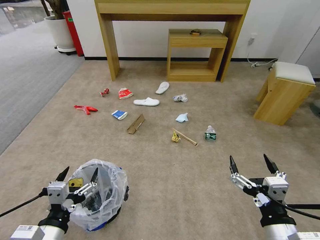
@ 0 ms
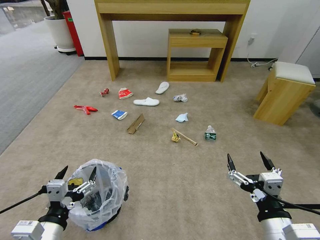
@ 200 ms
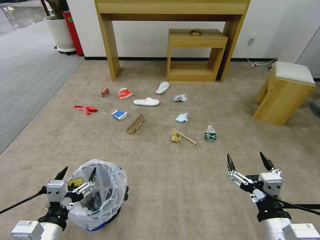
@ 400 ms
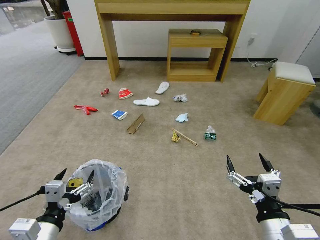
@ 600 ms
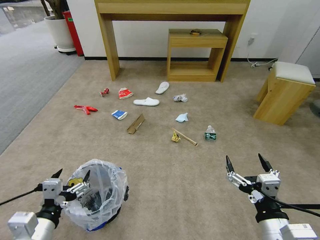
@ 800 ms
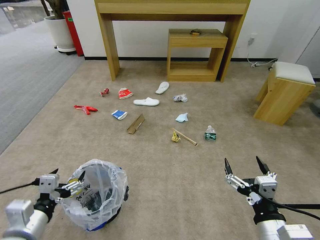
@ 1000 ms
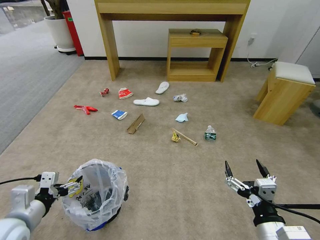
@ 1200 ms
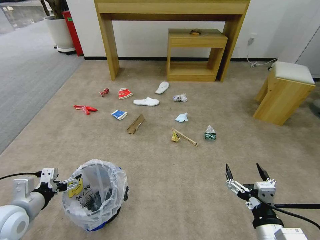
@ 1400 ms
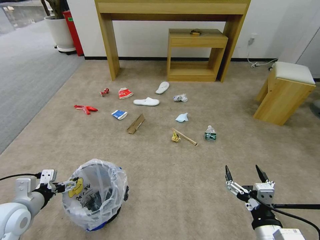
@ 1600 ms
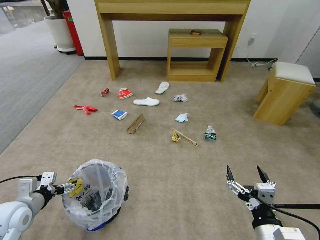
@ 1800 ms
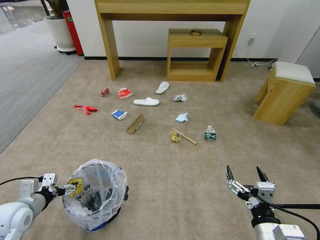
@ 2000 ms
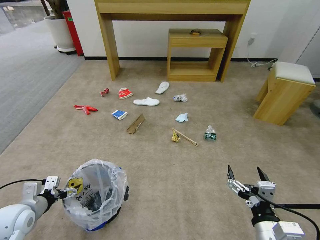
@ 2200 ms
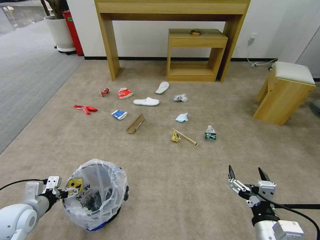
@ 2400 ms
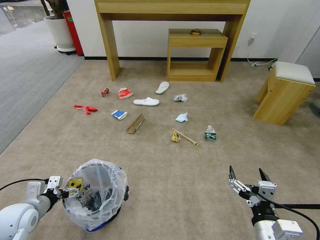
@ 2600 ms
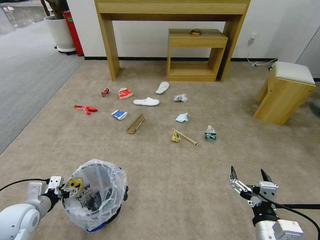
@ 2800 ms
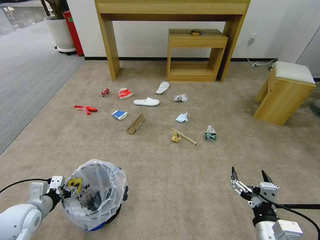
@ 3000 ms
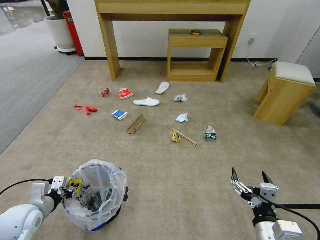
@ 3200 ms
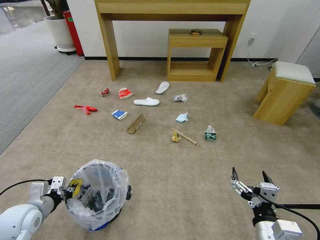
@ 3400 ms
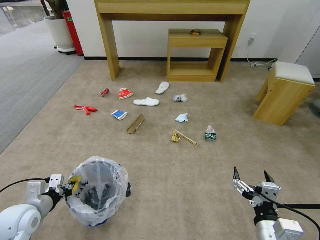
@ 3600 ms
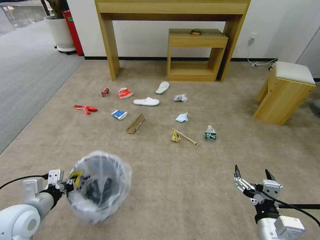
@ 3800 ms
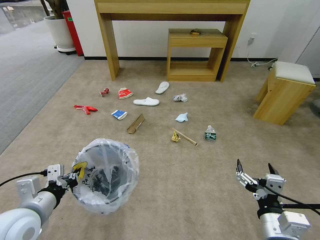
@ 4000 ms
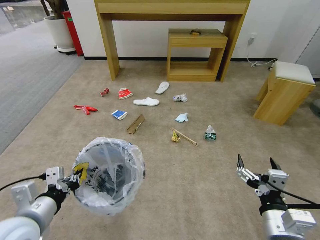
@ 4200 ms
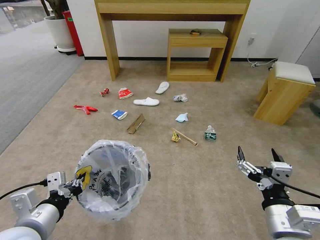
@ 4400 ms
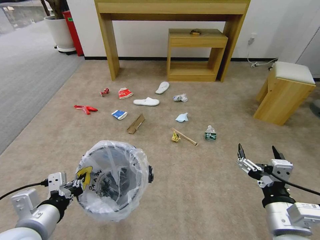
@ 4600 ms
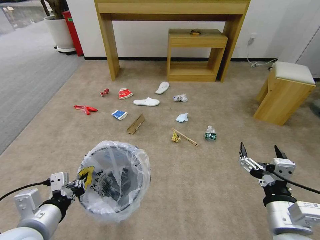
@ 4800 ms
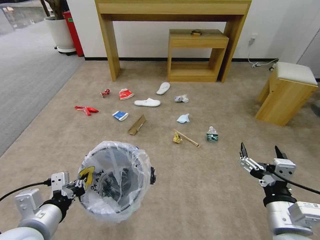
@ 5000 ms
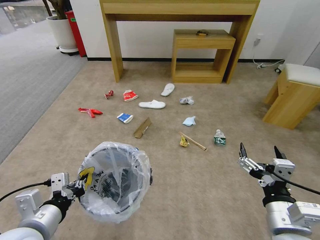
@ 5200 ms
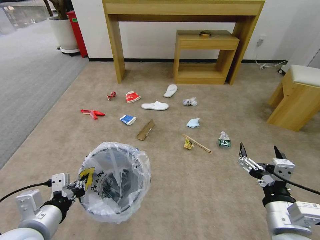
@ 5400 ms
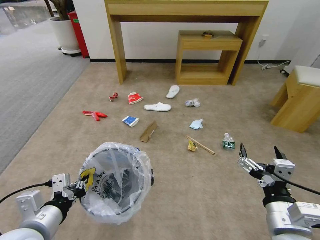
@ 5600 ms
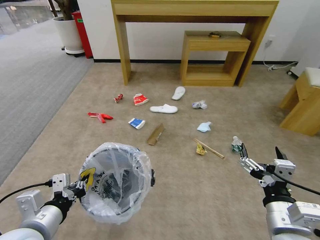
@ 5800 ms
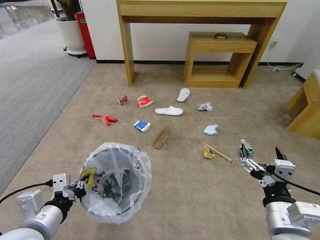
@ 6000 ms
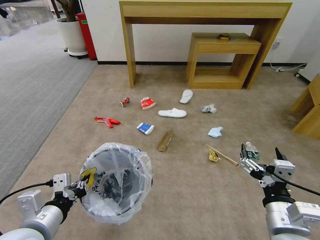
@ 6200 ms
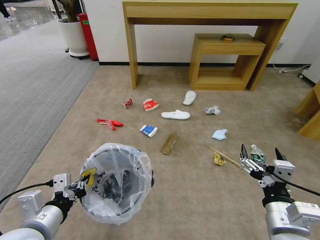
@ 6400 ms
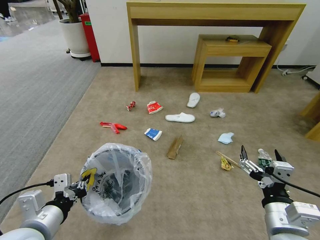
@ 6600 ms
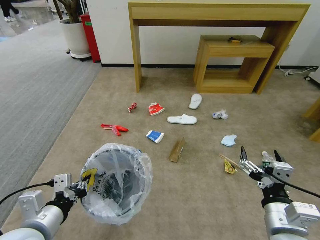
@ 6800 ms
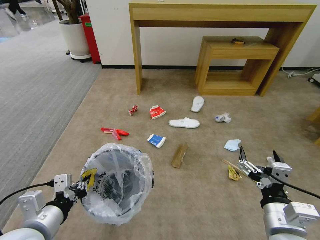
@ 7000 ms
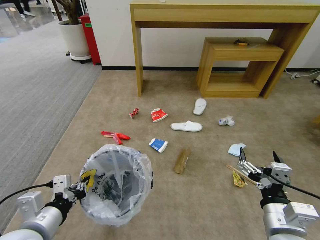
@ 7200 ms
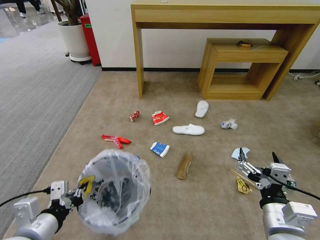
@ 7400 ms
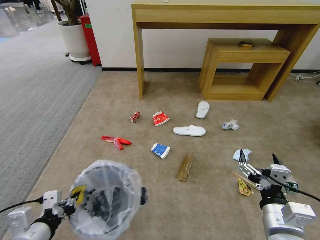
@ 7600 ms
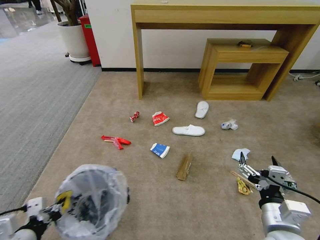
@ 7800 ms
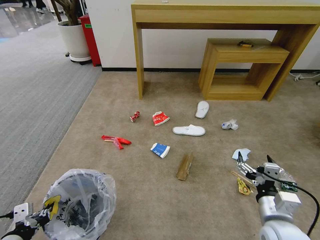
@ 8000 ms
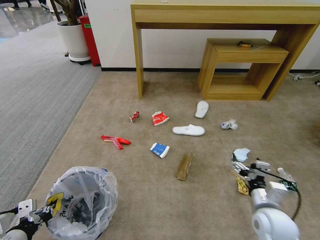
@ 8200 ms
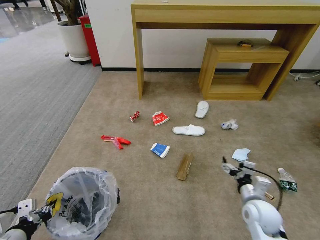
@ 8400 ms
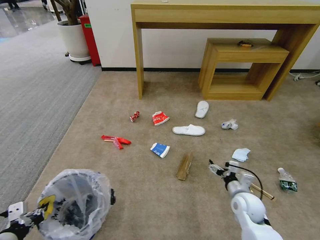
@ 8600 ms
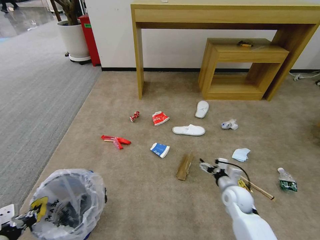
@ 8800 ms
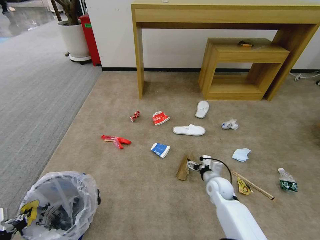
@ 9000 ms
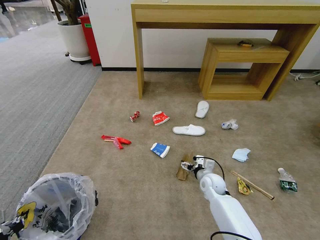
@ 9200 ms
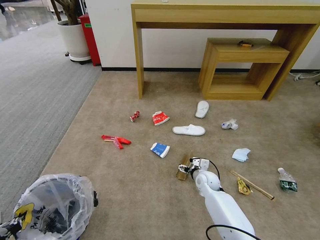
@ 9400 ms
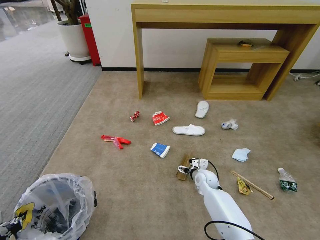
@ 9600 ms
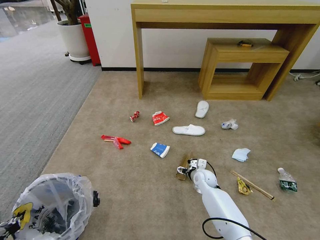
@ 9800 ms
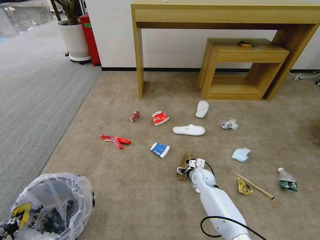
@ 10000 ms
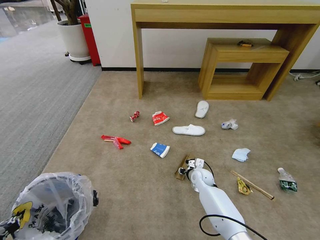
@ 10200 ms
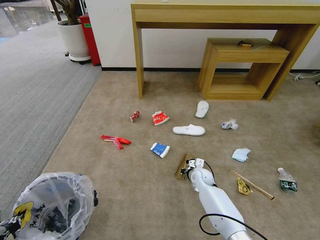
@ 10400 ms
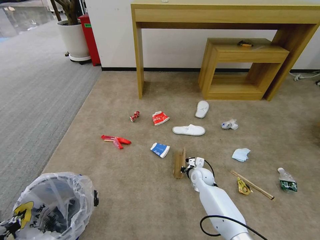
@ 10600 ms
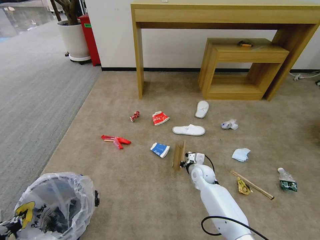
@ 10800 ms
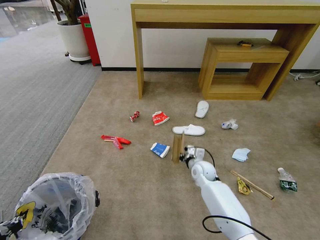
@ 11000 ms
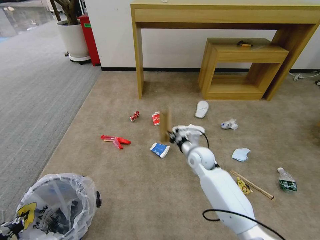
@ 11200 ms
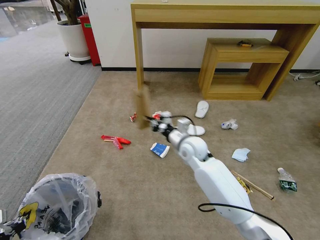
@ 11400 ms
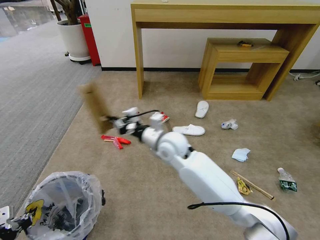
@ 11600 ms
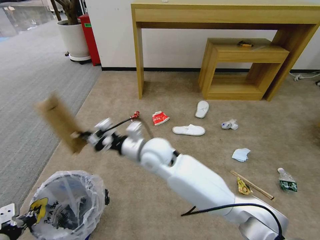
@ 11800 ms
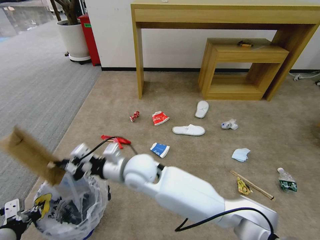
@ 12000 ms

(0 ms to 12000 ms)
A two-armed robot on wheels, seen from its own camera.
Task of the whole recording: Pick up the trash bin and place the garbage on the floor into it.
1600 ms - 3000 ms: The left gripper is displaced downward by roughly 5 cm, and closes up.
3000 ms - 4400 ms: The right gripper travels upward by approximately 5 cm, while the left gripper goes approximately 20 cm upward, to the right and backward, and closes its fingers.
6000 ms - 7600 ms: The left gripper shifts by approximately 5 cm.
7600 ms - 9000 ms: The right gripper heads forward and downward, covering roughly 30 cm, while the left gripper is displaced to the left by approximately 10 cm.
9000 ms - 10400 ms: The right gripper shifts about 5 cm forward, and closes up.
10400 ms - 12000 ms: The right gripper travels to the left and upward by some 35 cm.

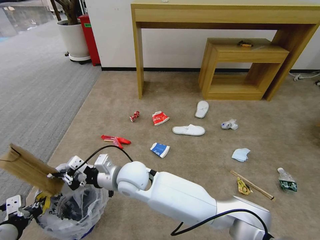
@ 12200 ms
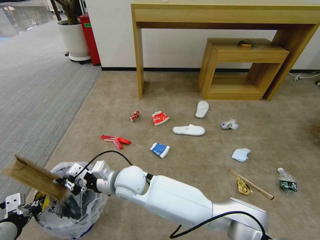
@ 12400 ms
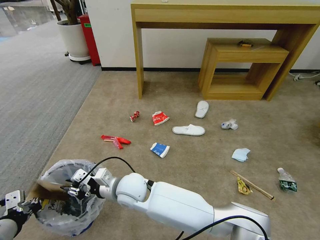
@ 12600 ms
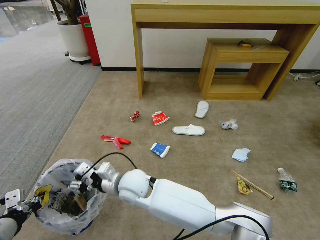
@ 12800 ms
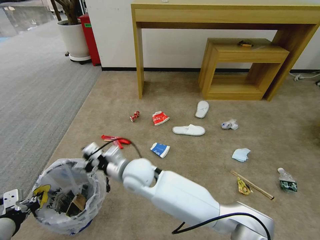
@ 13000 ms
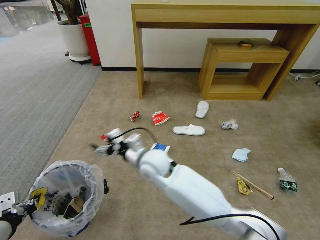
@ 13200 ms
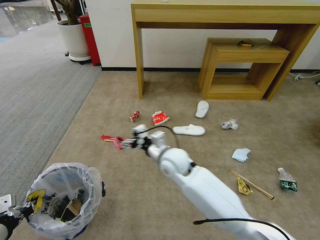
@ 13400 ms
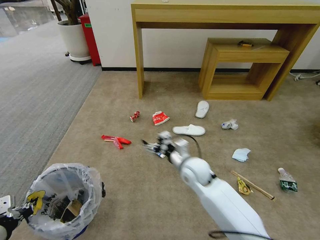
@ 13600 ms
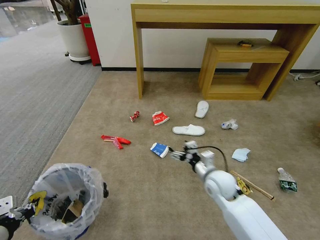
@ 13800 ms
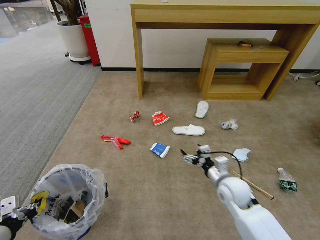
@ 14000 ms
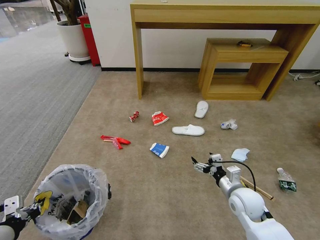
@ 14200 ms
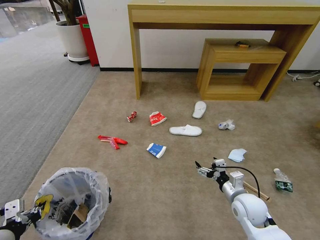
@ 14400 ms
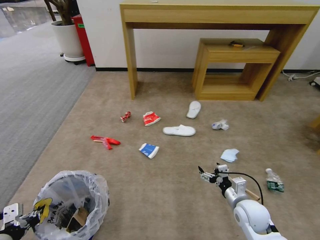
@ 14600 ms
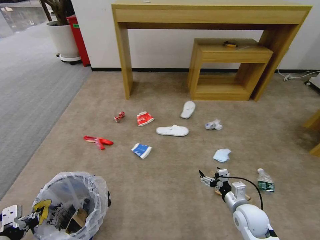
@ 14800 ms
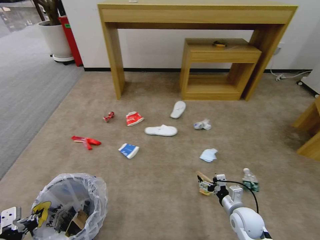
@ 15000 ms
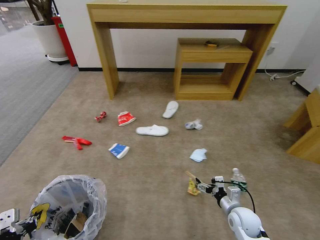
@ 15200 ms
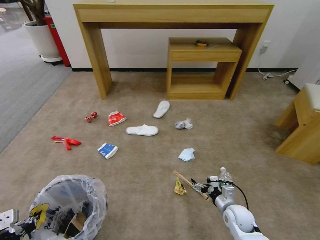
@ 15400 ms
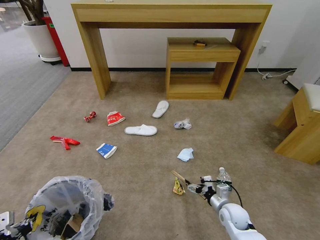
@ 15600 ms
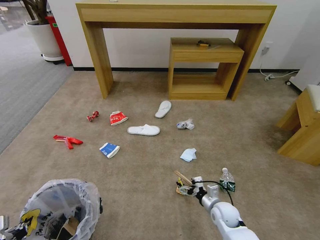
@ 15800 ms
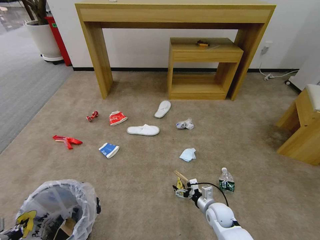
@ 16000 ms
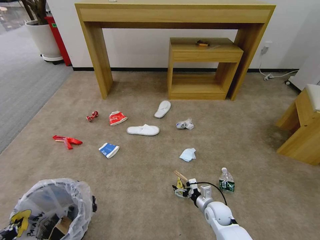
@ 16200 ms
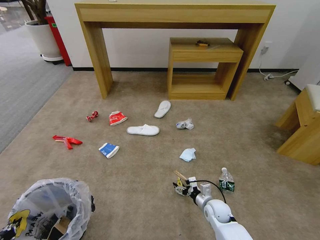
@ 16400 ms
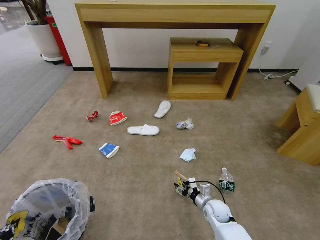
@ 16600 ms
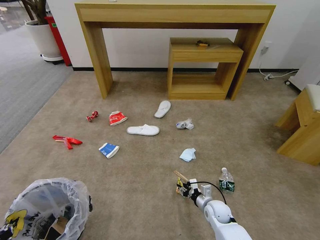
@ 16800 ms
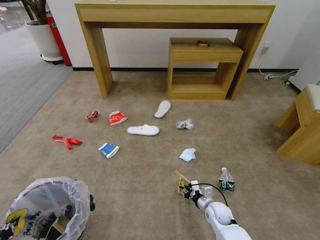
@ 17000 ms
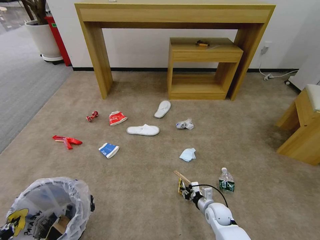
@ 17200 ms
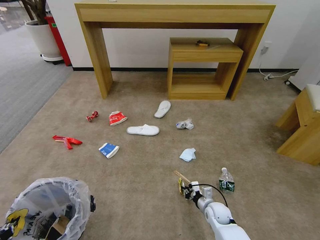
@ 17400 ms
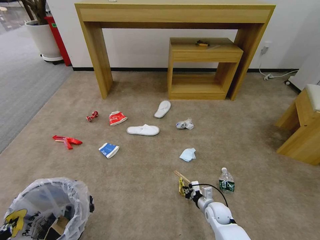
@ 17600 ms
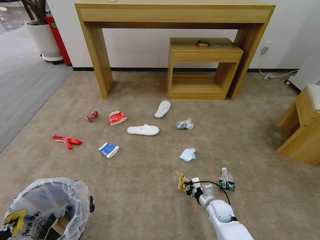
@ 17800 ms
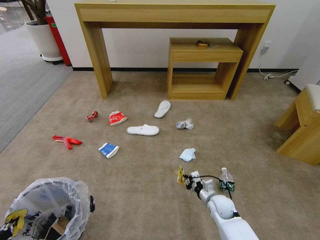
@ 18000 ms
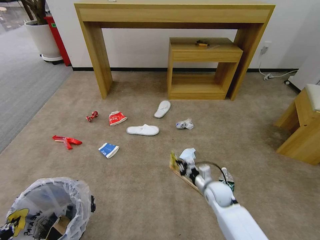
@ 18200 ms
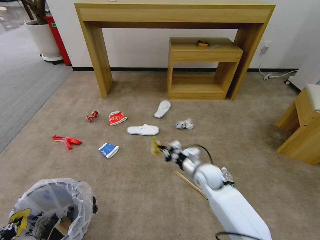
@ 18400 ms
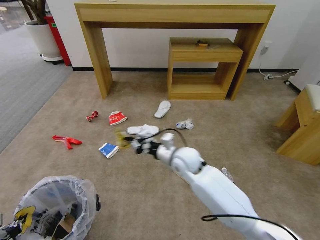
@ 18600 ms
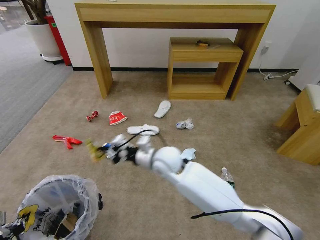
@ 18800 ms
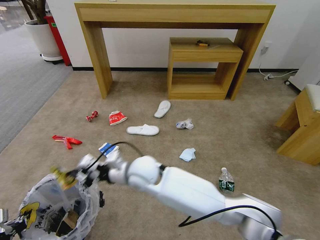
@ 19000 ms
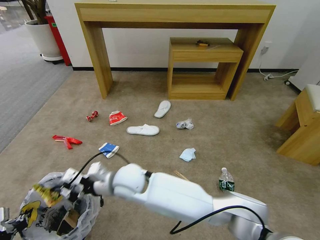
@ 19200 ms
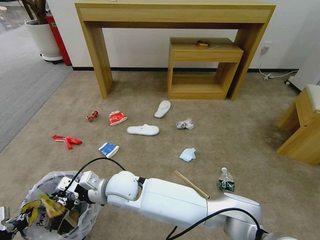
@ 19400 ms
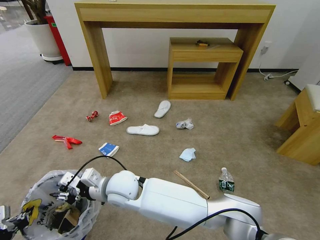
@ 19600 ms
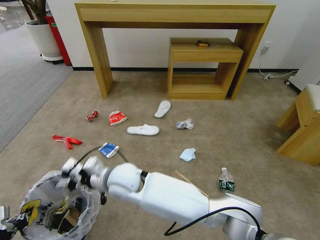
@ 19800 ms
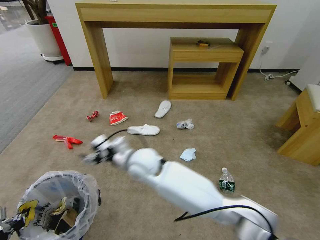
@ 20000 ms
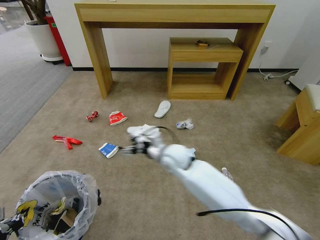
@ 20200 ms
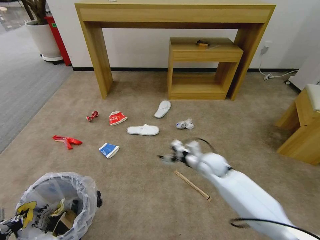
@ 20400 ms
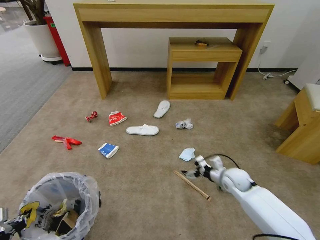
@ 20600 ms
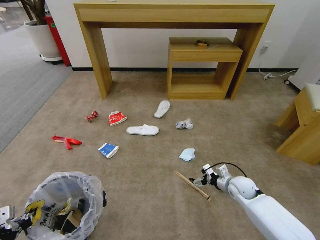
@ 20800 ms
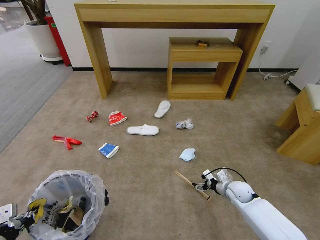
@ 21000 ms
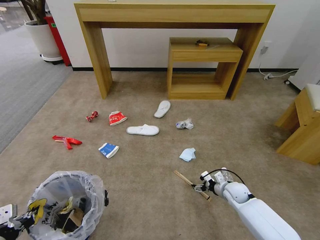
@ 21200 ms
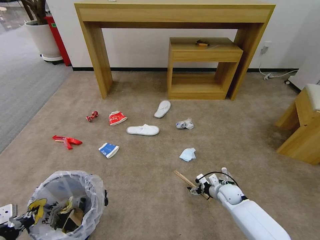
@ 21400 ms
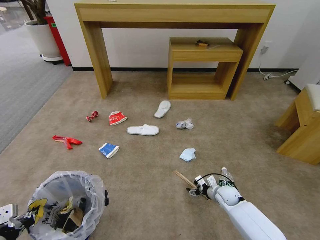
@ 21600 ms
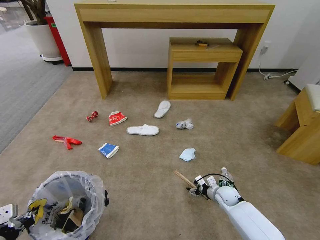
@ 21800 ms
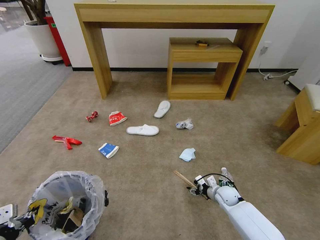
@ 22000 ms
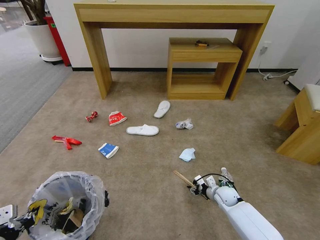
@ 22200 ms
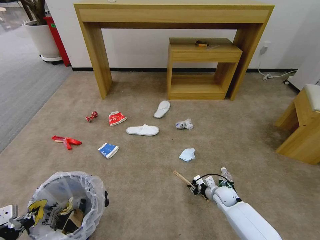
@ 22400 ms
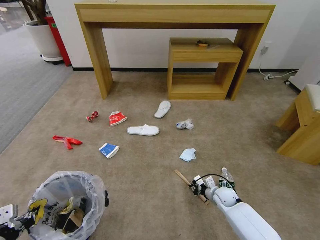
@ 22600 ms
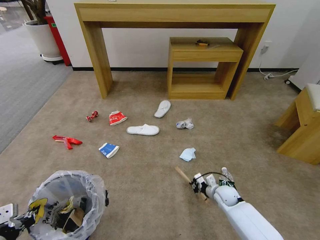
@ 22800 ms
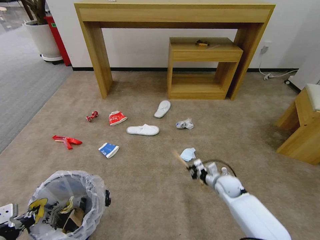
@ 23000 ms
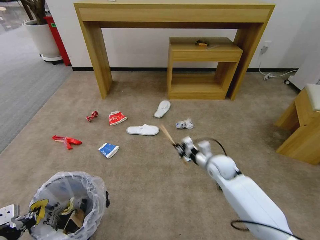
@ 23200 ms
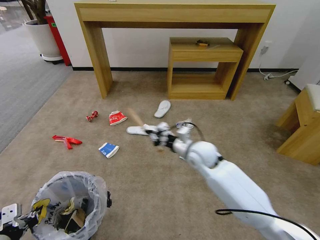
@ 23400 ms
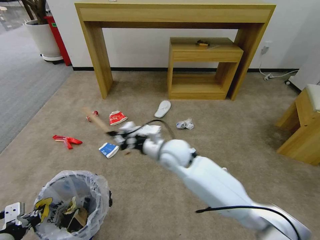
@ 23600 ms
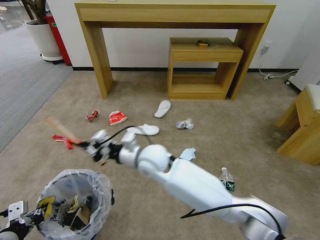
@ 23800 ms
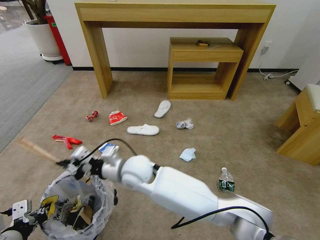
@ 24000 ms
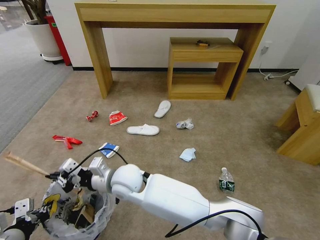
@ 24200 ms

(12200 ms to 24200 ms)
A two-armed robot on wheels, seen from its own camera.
Task of the whole recording: Pick up the trash bin and place the garbage on the floor into it.
12200 ms - 13800 ms: The right gripper is displaced to the right by about 30 cm, and opens.
13800 ms - 15200 ms: The right gripper heads downward, to the right and backward, covering roughly 20 cm.
15200 ms - 16600 ms: The right gripper is displaced to the left and downward by approximately 10 cm, and closes its fingers.
16600 ms - 18200 ms: The right gripper shifts approximately 10 cm upward, and closes.
18200 ms - 19800 ms: The right gripper heads to the left and upward, covering some 40 cm, and opens its fingers.
19800 ms - 21200 ms: The right gripper heads to the right and downward, covering roughly 50 cm.
21200 ms - 22600 ms: The right gripper moves roughly 5 cm, and closes.
22600 ms - 24200 ms: The right gripper goes some 50 cm to the left and upward.
